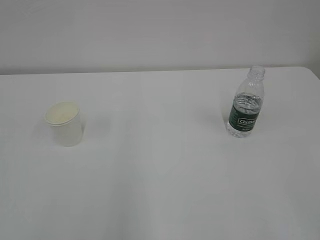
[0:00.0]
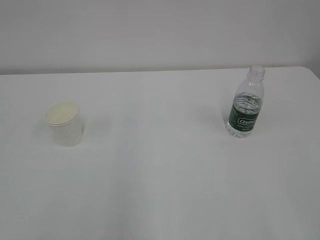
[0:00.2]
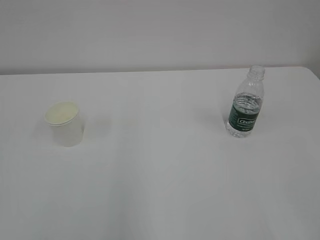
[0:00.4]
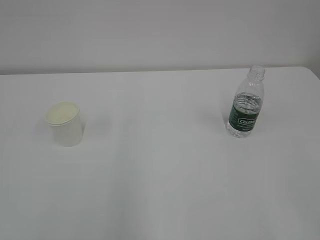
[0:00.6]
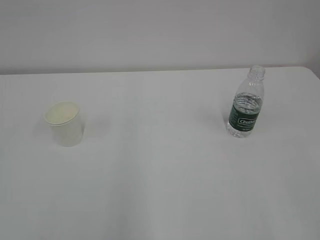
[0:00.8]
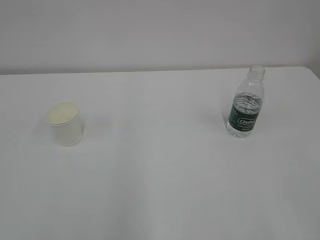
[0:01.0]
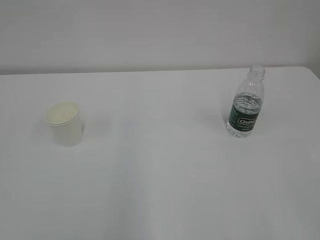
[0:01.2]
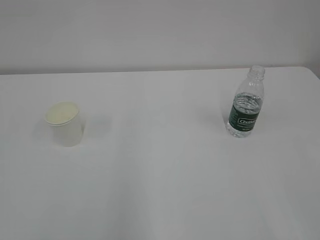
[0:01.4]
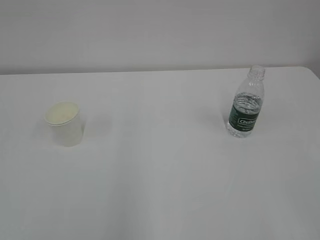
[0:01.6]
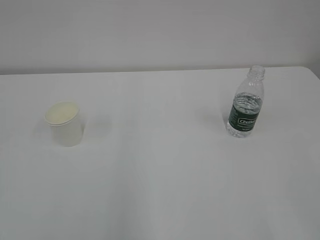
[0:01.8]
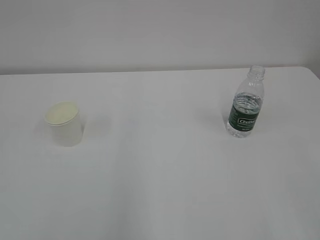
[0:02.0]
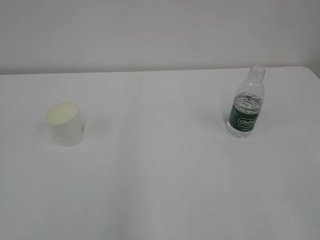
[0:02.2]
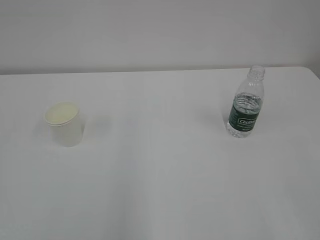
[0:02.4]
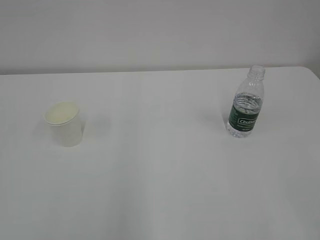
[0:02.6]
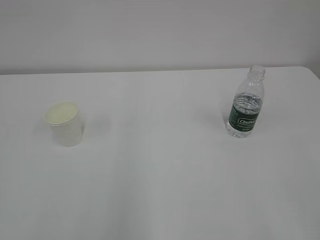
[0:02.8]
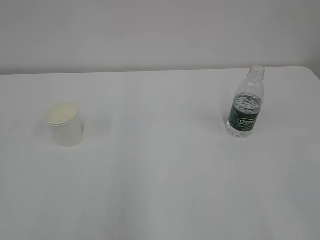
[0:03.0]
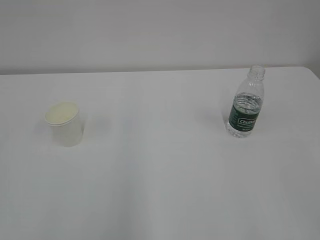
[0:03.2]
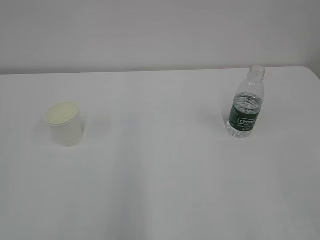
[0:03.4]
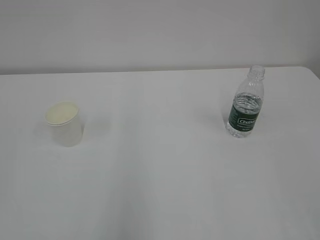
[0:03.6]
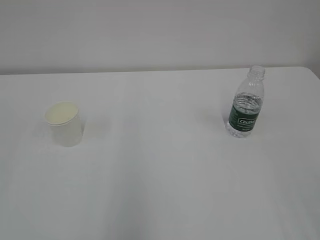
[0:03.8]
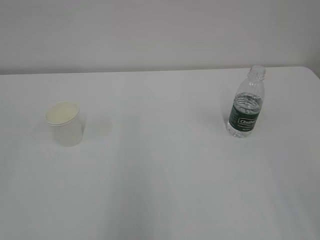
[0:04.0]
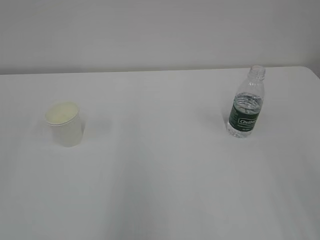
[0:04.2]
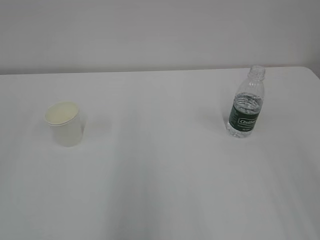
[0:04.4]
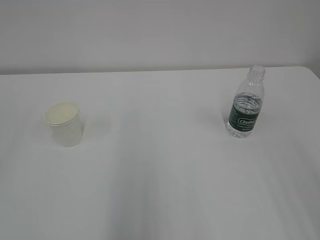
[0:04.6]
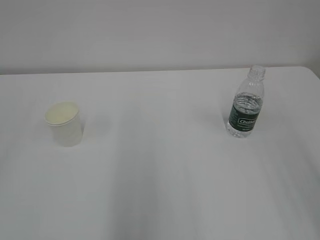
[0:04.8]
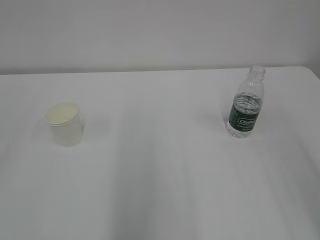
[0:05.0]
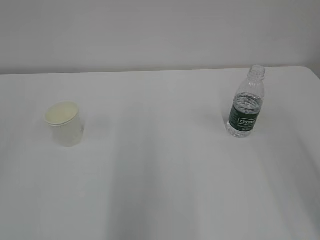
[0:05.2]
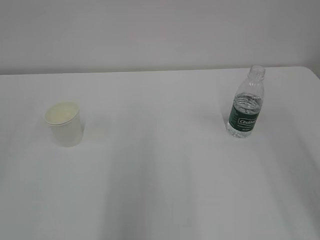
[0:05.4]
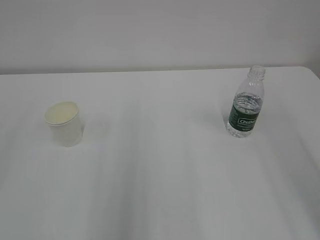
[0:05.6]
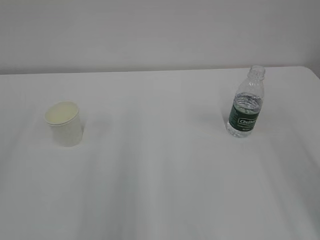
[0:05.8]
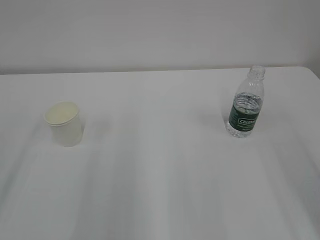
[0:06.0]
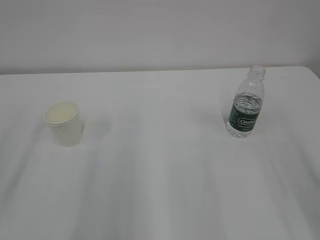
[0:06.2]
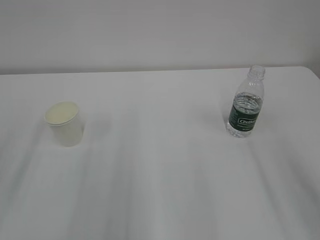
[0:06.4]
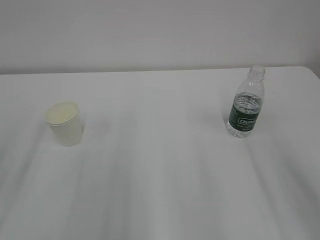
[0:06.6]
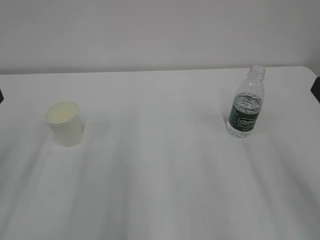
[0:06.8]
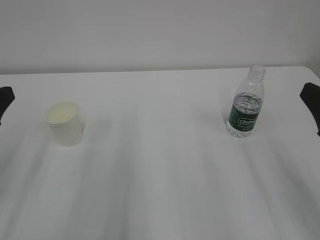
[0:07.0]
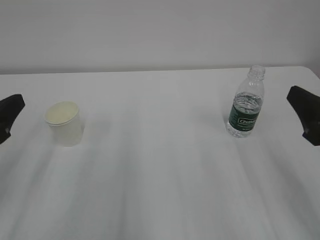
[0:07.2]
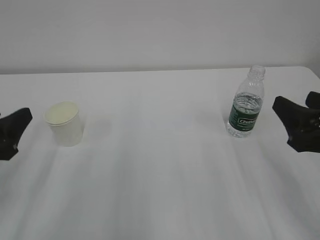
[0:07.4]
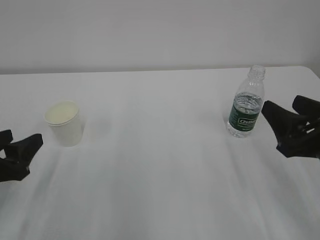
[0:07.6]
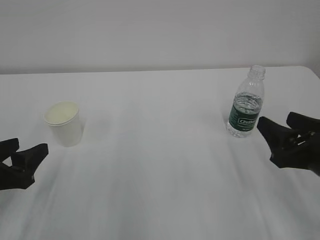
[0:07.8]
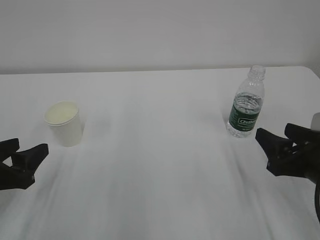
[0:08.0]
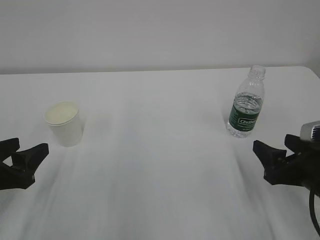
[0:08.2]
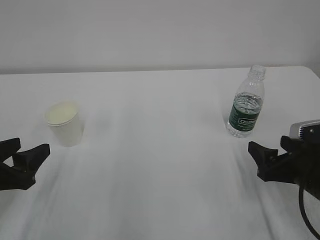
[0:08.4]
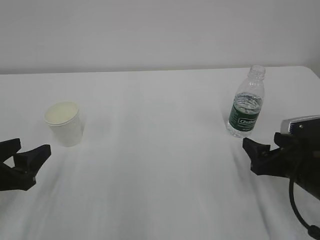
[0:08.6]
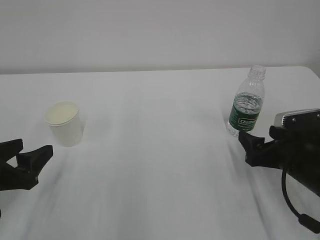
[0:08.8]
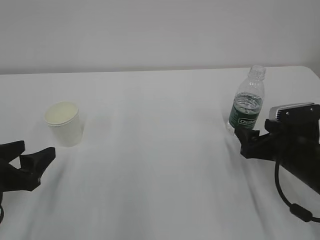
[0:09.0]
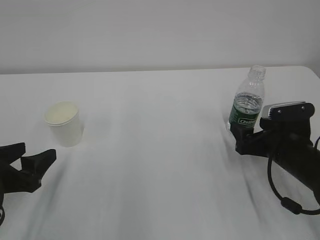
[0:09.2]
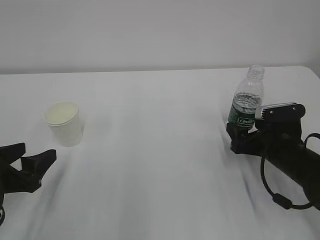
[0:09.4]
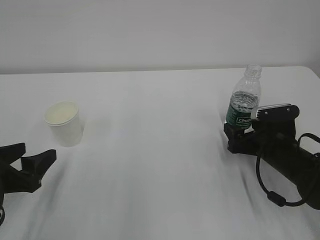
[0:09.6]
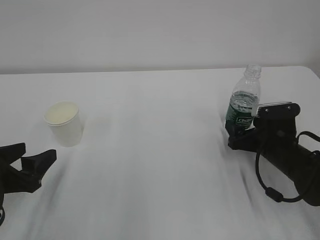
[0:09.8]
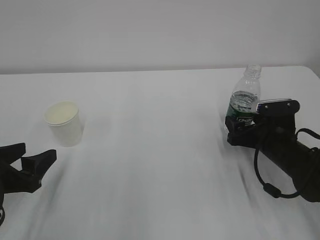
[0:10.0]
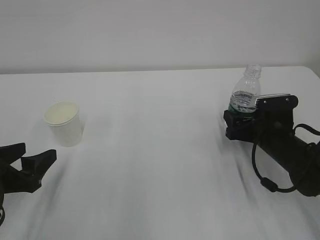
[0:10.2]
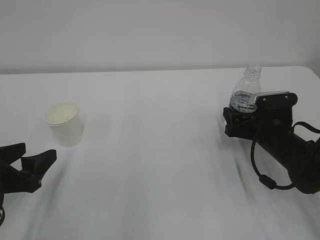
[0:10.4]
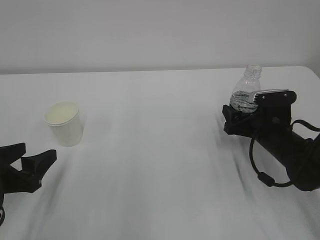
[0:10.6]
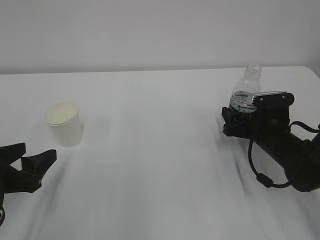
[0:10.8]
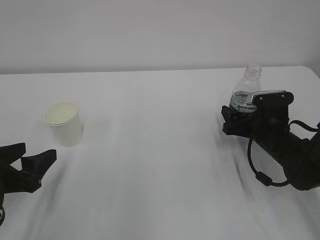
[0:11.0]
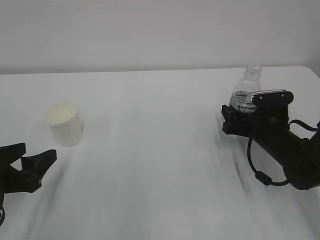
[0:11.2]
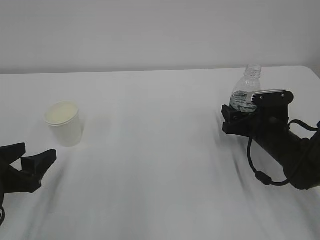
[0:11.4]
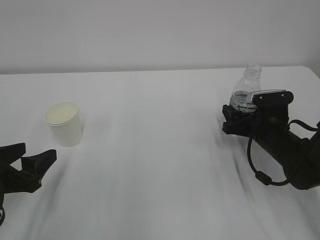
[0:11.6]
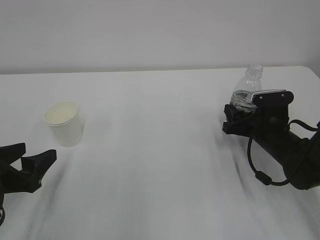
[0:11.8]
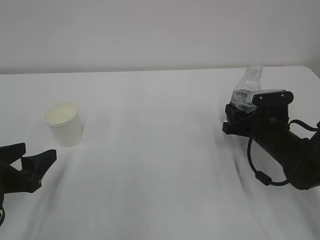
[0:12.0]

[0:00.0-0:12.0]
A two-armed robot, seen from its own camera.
0:06.0 to 0:07.6: The two grippers go about 15 cm downward and forward.
0:07.6 to 0:09.0: The right gripper travels downward and forward by about 10 cm.
0:09.0 to 0:10.4: The right gripper goes about 5 cm forward.
0:10.4 to 0:12.0: The right gripper closes.

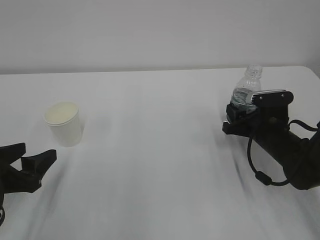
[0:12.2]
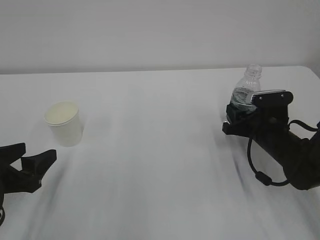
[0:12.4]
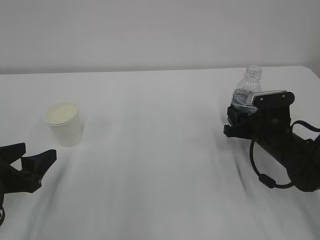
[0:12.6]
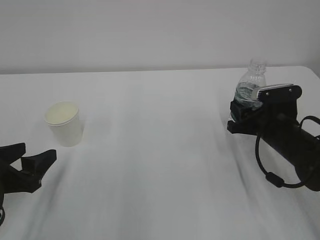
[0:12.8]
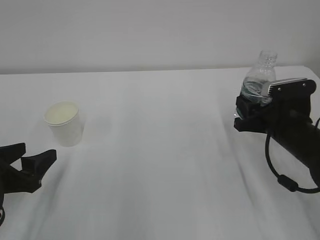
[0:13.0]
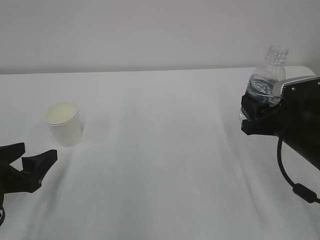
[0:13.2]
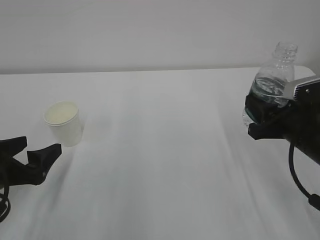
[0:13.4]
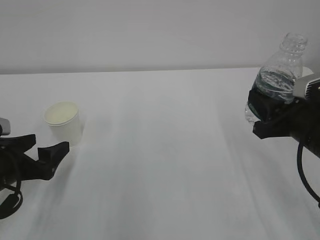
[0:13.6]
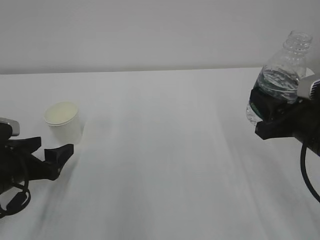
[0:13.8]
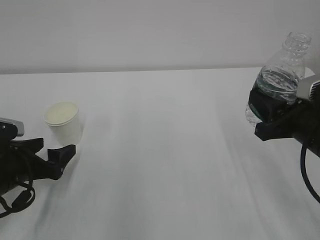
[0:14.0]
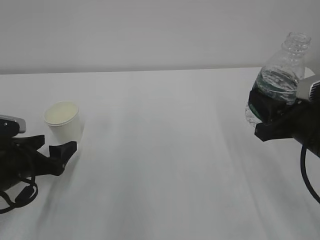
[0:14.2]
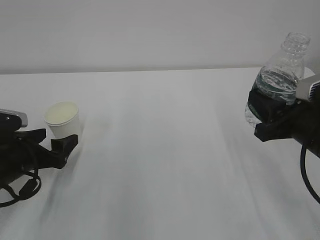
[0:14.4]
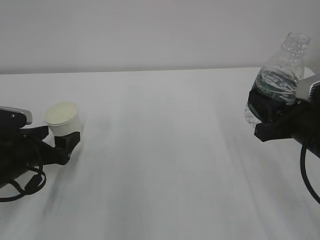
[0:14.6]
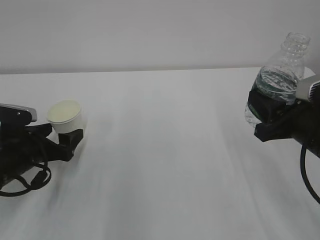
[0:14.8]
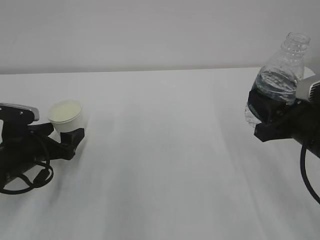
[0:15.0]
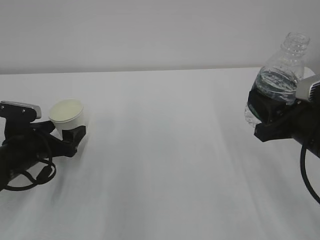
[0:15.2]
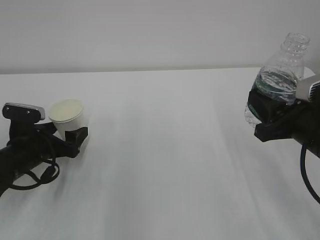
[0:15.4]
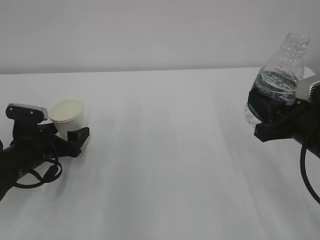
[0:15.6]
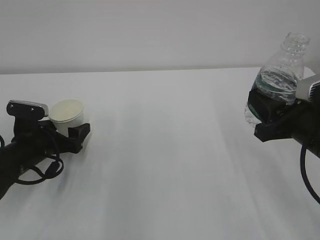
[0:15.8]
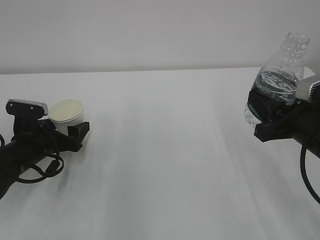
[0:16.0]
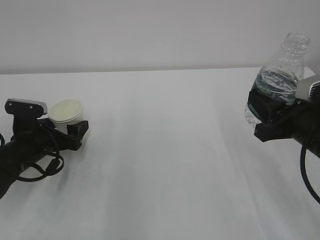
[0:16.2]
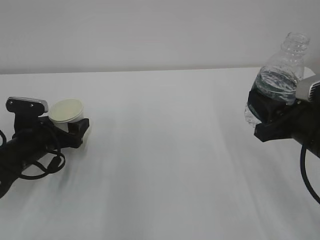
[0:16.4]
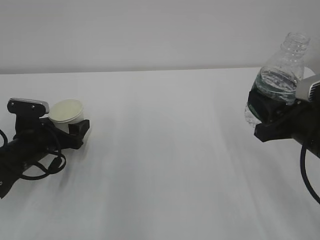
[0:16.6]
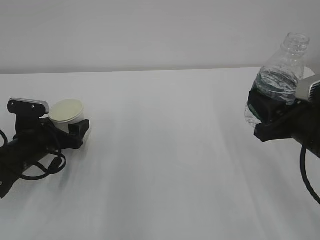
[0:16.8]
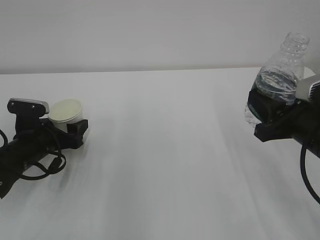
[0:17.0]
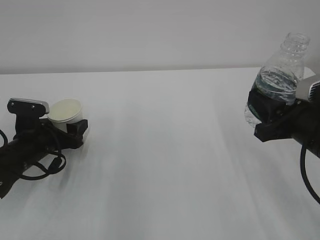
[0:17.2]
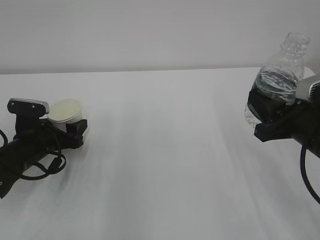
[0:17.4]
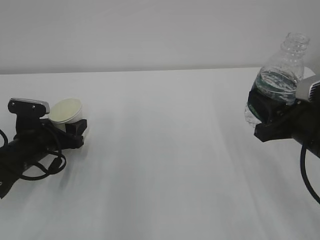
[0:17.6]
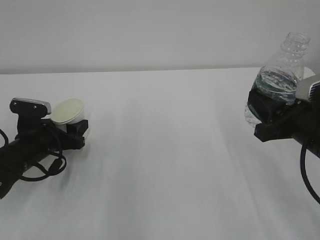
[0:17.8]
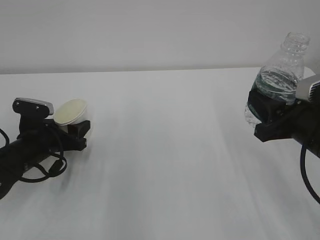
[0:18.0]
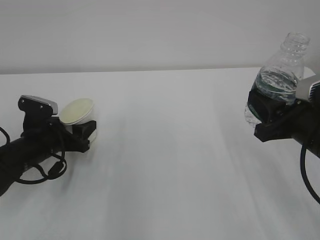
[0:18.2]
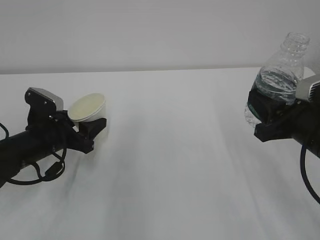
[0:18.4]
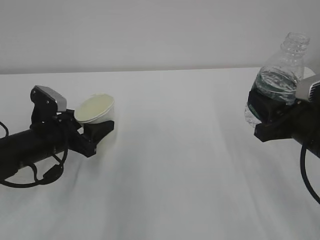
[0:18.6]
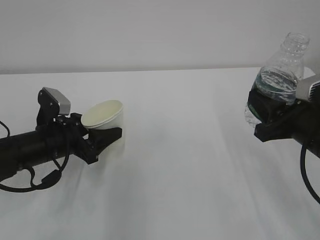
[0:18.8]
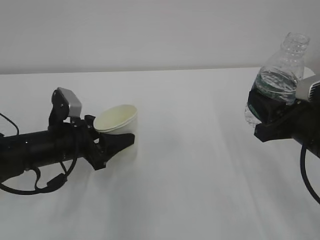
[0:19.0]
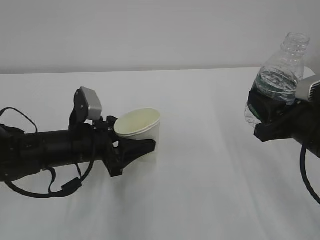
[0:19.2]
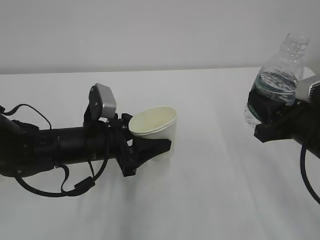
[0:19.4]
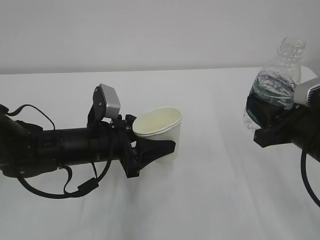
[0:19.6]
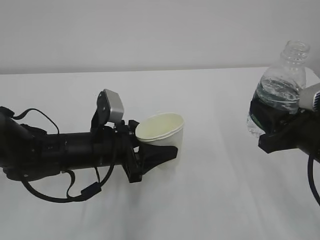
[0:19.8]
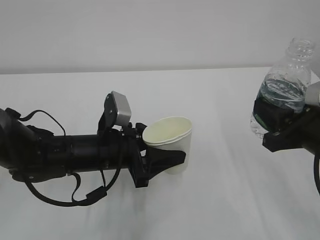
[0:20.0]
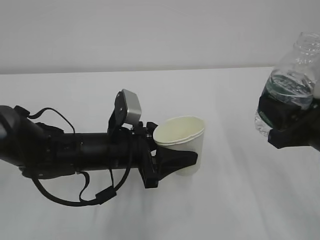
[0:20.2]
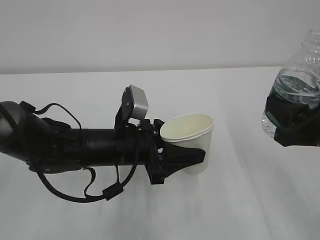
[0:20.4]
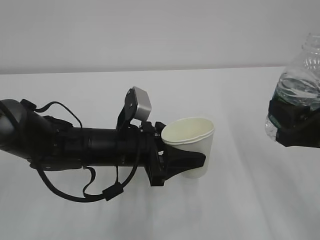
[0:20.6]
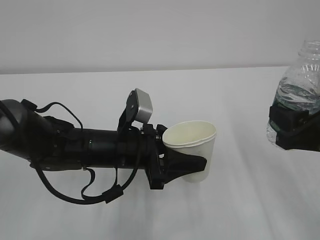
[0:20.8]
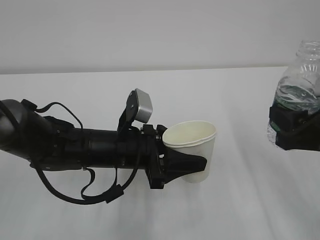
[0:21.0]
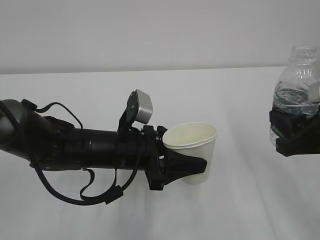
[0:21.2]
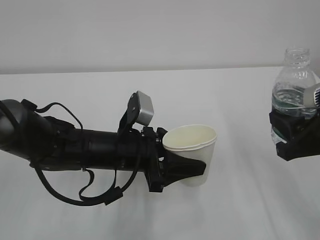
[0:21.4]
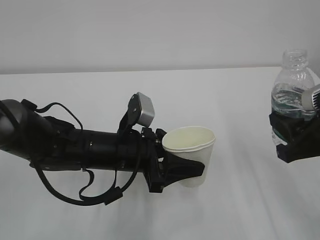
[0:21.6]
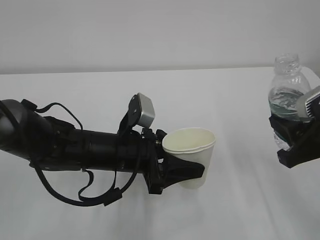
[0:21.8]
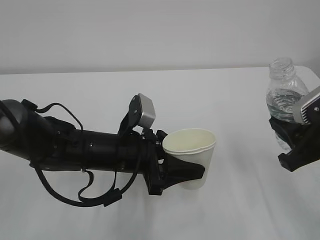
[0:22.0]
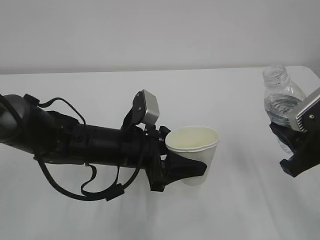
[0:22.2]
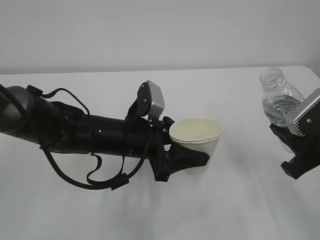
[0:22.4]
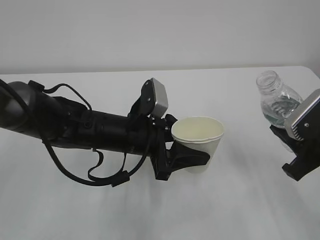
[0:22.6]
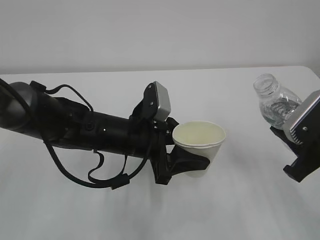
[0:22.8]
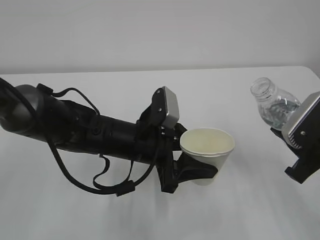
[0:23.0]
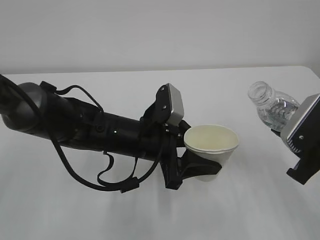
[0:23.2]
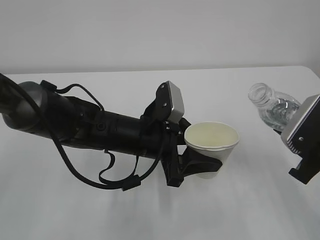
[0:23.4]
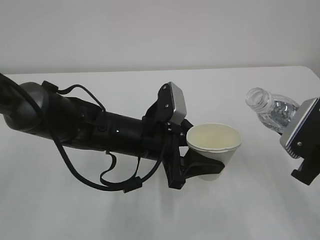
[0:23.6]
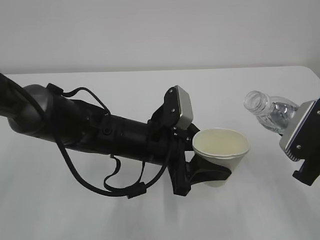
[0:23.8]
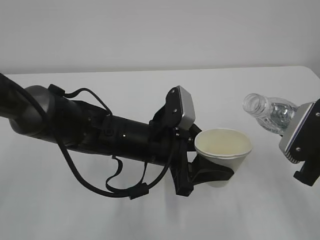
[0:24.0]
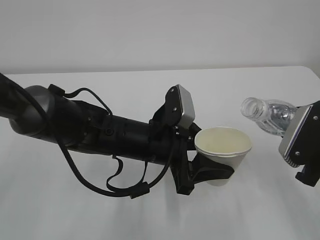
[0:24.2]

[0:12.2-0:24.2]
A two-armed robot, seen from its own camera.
0:12.2 to 0:13.8: The right gripper travels upward and backward by roughly 15 cm.
0:13.8 to 0:15.2: The left gripper shifts roughly 5 cm forward.
0:15.2 to 0:16.6: The grippers stay close to where they were, moving slightly.
0:16.6 to 0:18.2: The left gripper closes its fingers.
0:18.2 to 0:19.8: The left gripper is displaced to the right by some 10 cm.
0:19.8 to 0:21.2: The grippers move only a little.
